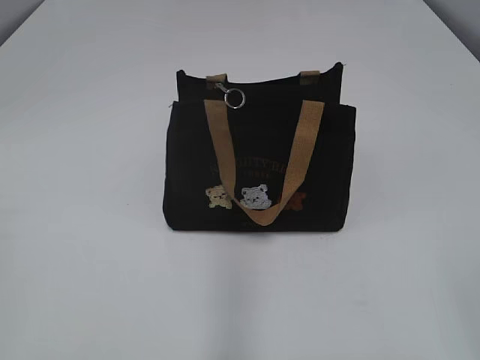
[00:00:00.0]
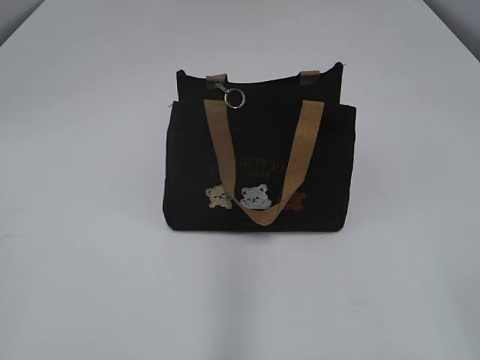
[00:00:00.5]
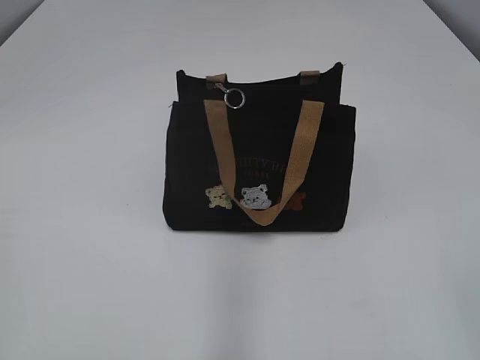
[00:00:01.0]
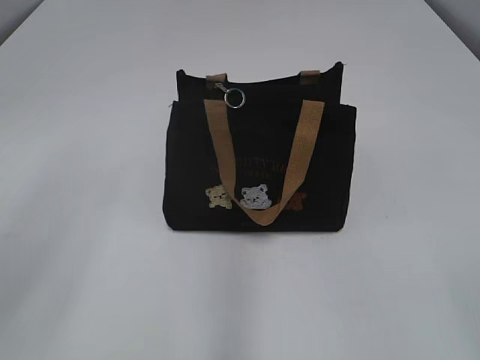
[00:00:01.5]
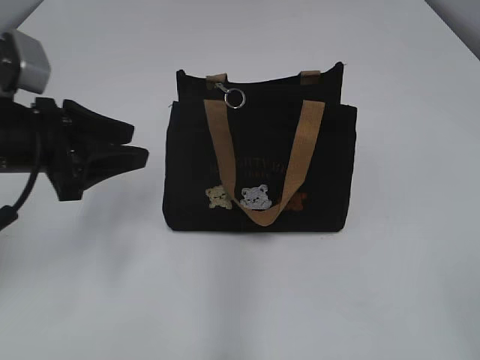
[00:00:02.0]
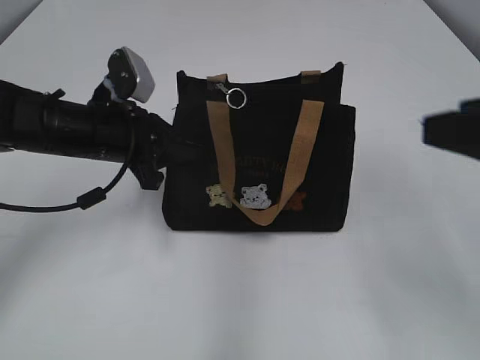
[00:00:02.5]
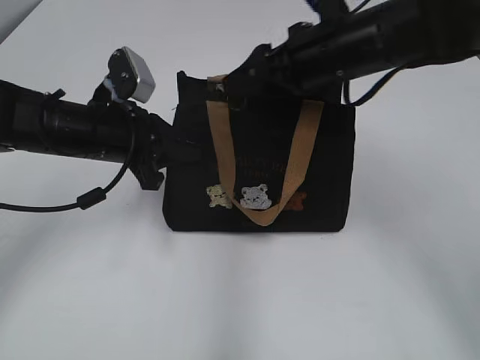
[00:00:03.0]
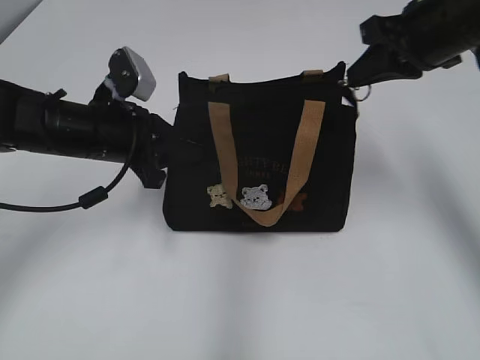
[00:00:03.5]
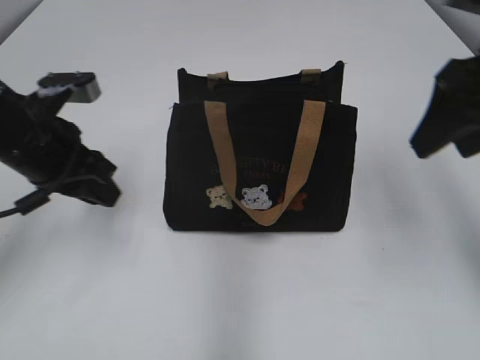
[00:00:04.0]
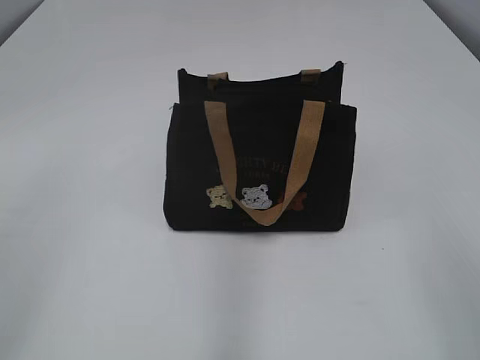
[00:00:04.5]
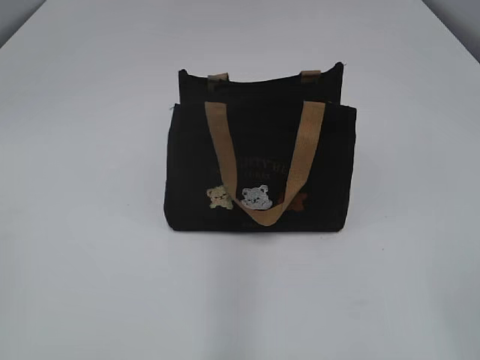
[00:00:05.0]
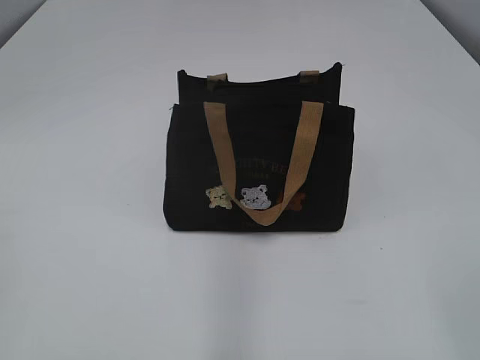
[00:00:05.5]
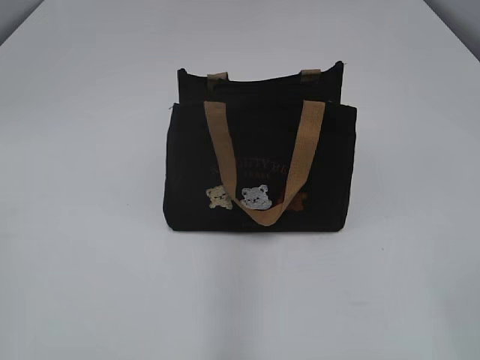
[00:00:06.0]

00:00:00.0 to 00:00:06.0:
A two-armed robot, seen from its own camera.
Step, 00:00:00.0 to 00:00:03.5: Pull open the zipper with your right hand.
00:00:02.0 to 00:00:04.0: The left gripper closes. The right gripper moves forward, about 30 cm, and closes and opens again.
00:00:04.0 to 00:00:06.0: Both grippers travel together backward, some 30 cm.

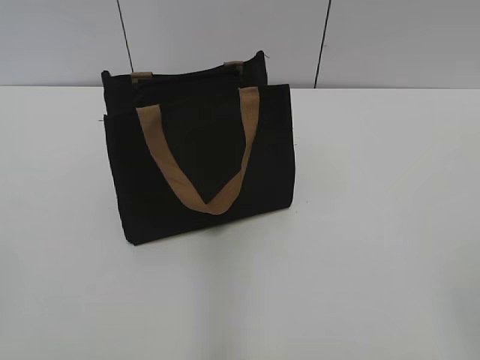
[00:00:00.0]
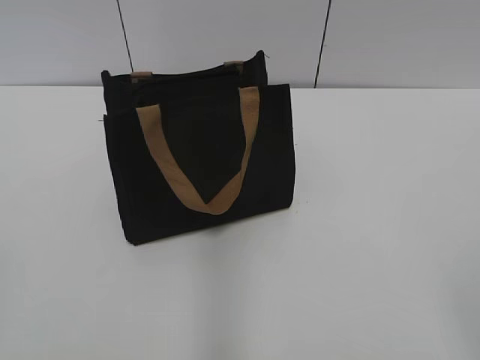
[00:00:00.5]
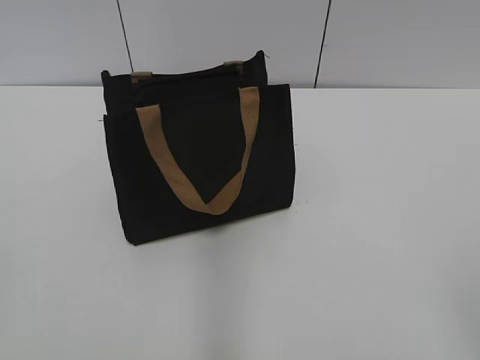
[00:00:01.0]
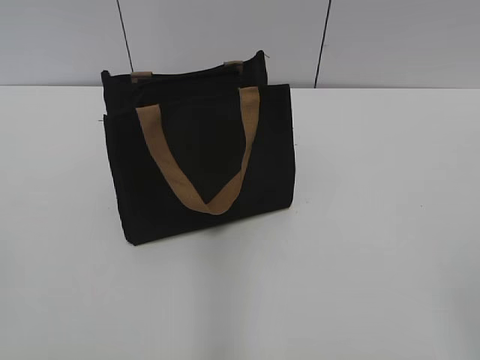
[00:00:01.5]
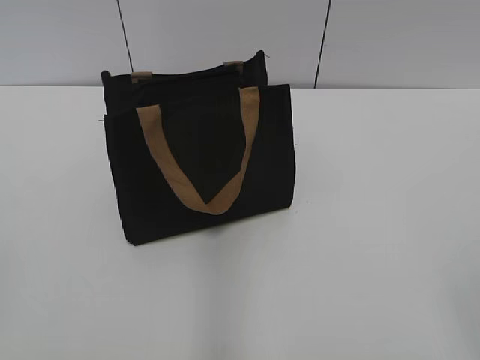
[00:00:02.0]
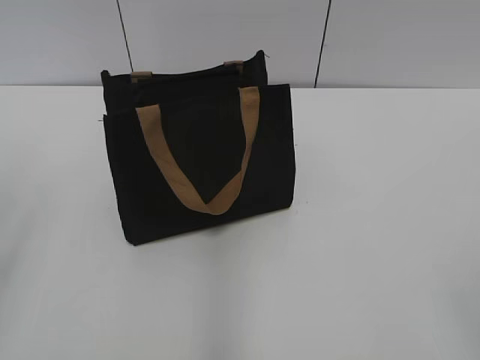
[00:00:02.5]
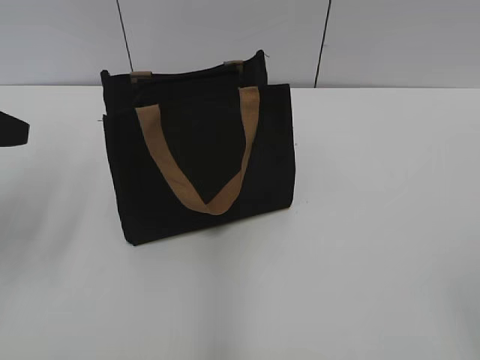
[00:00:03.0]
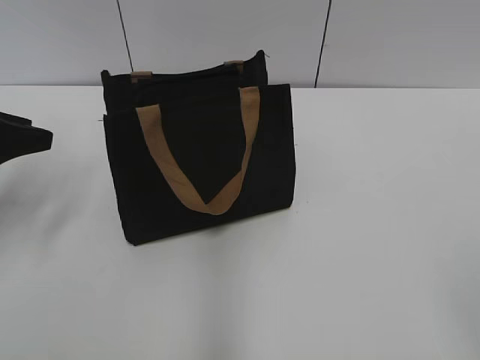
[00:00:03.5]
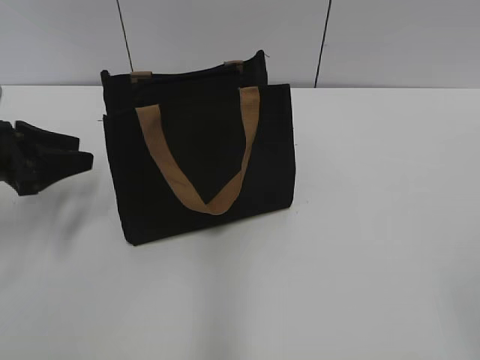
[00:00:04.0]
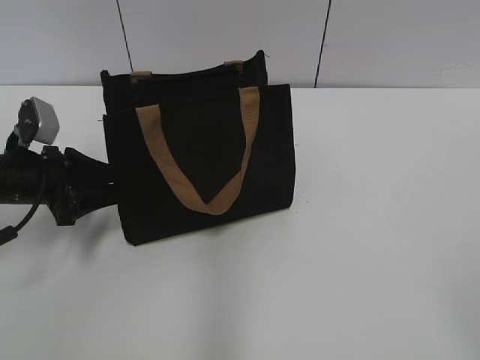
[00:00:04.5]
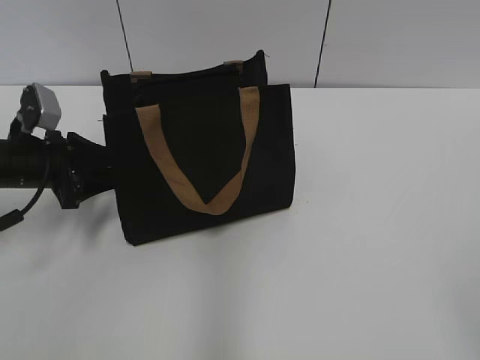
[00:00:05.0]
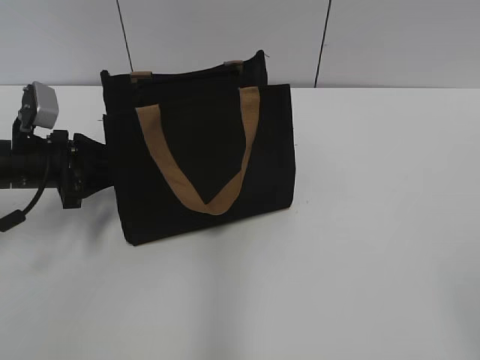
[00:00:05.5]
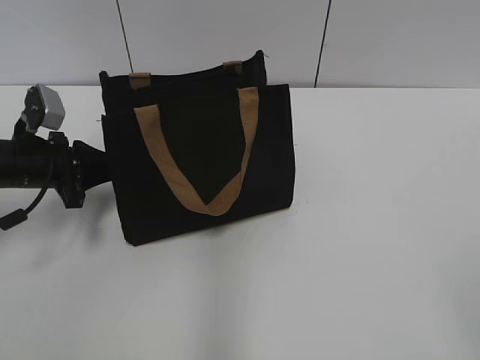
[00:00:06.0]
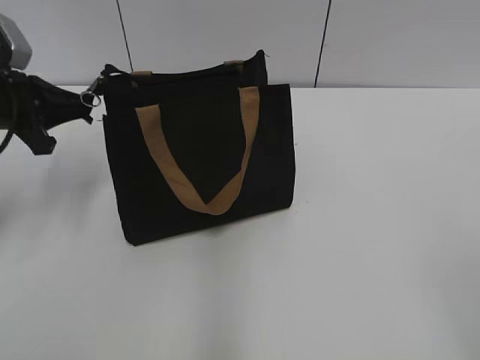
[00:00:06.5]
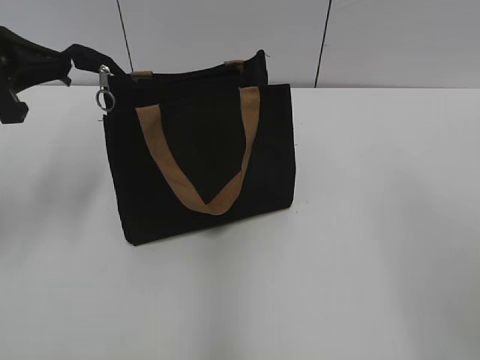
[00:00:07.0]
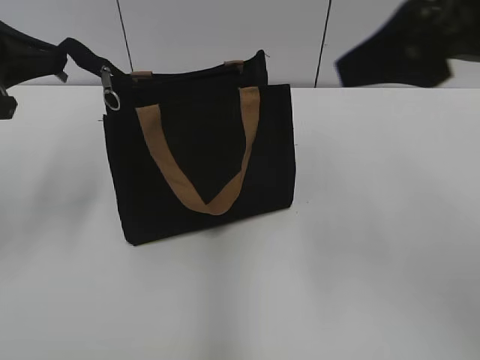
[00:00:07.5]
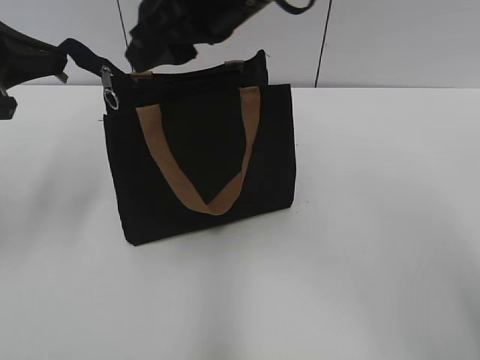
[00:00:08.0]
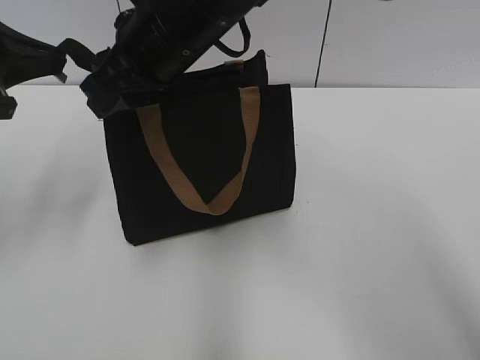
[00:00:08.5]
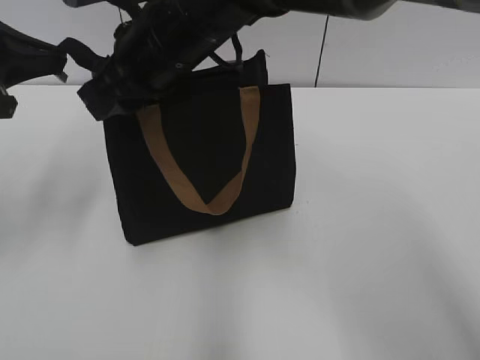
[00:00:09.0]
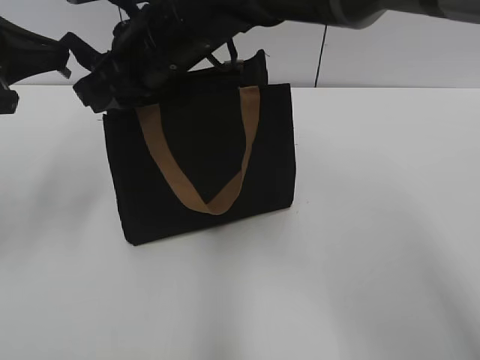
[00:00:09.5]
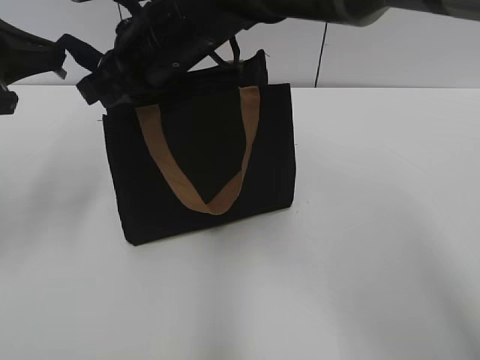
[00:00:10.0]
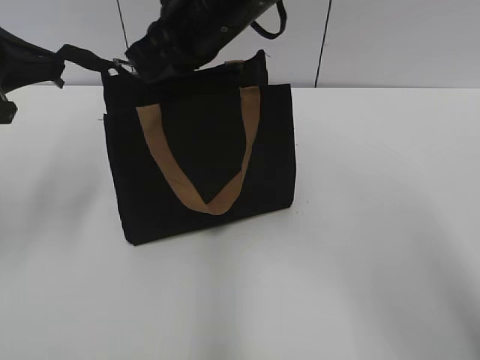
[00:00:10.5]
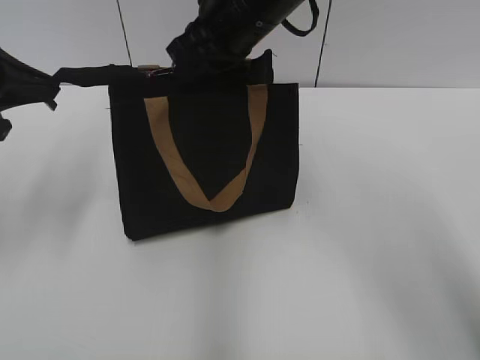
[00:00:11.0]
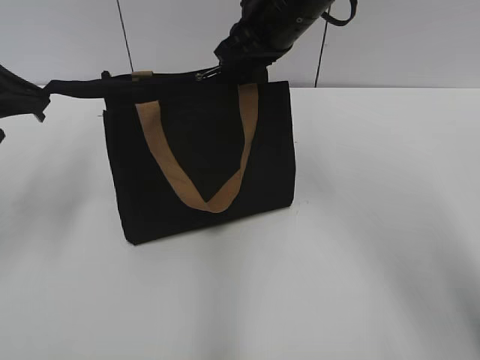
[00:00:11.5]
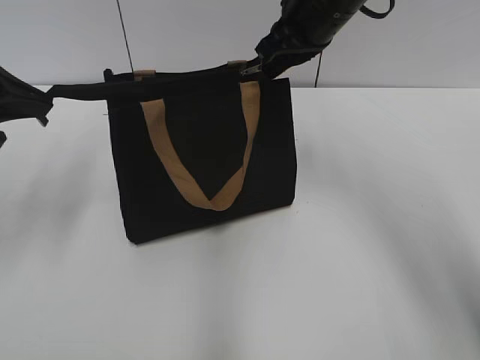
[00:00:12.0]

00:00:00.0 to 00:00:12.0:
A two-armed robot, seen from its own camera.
00:00:02.0 to 00:00:04.0: The left gripper travels forward and downward by roughly 35 cm.
00:00:04.0 to 00:00:06.0: The left gripper moves roughly 5 cm, and closes.
00:00:06.0 to 00:00:08.0: The right gripper is displaced forward and to the left by some 40 cm, while the left gripper goes some 15 cm upward.
00:00:08.0 to 00:00:10.0: The right gripper heads downward and to the left, covering roughly 10 cm, and closes up.
00:00:10.0 to 00:00:12.0: The right gripper heads to the right and forward, covering approximately 15 cm.

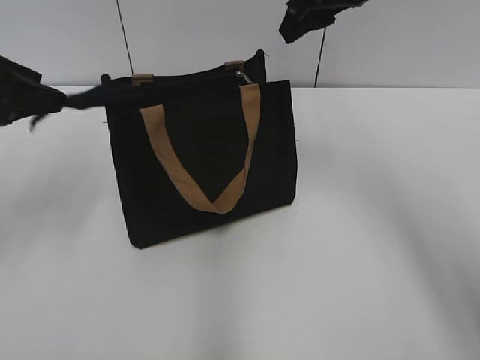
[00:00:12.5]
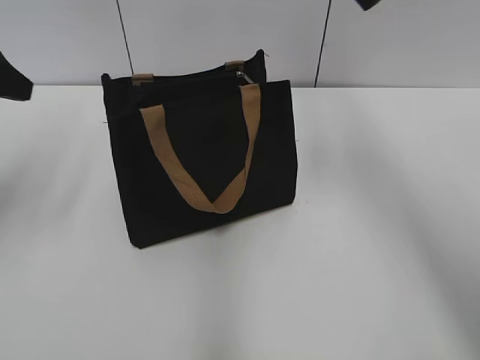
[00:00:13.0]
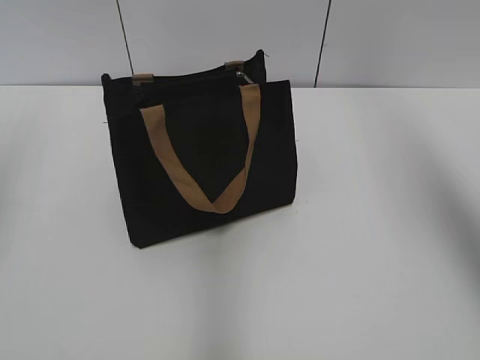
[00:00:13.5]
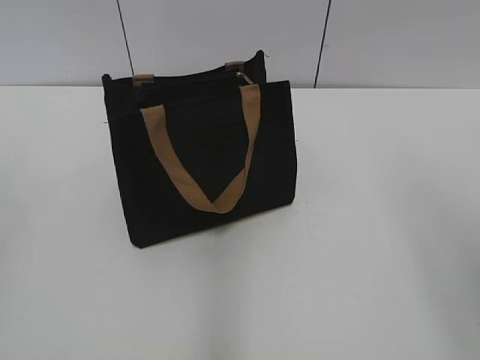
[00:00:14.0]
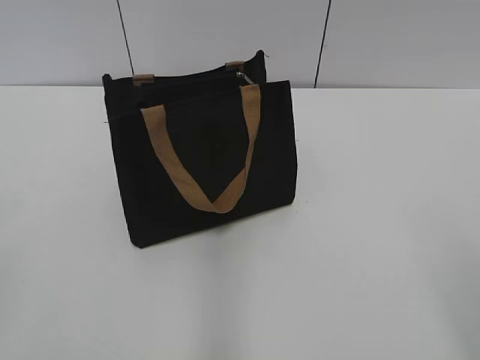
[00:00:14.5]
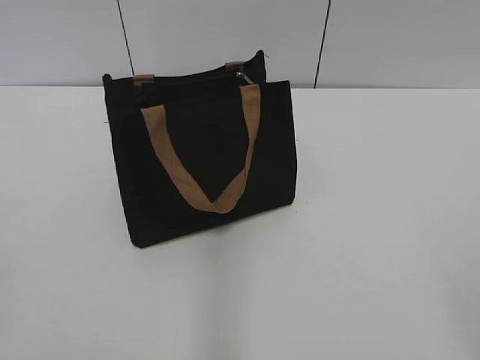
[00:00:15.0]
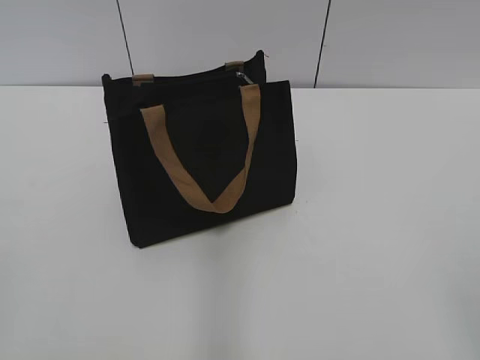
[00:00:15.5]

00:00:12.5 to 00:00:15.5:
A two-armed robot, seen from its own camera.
00:00:12.5 to 00:00:14.0: The left gripper heads backward and upward, covering approximately 20 cm. Meanwhile the right gripper goes approximately 30 cm backward and to the right.
